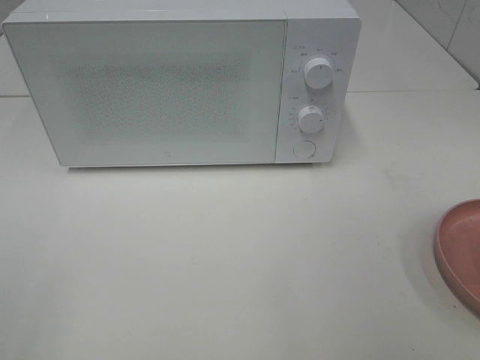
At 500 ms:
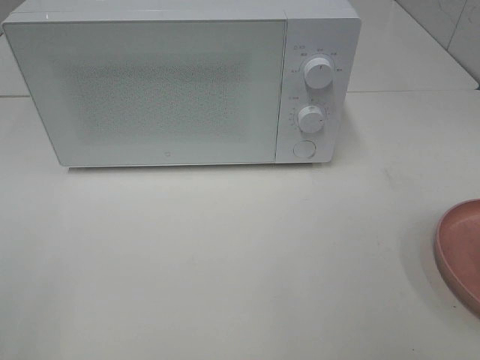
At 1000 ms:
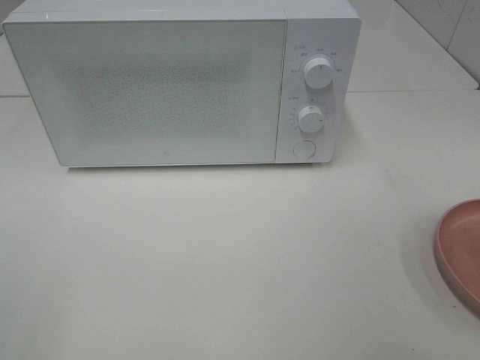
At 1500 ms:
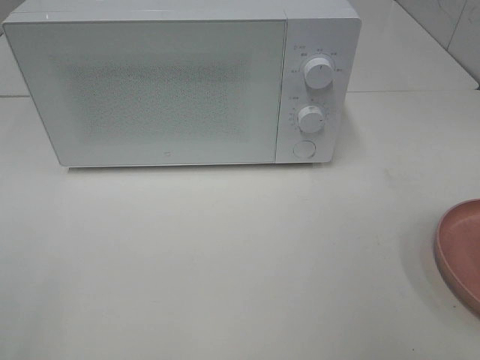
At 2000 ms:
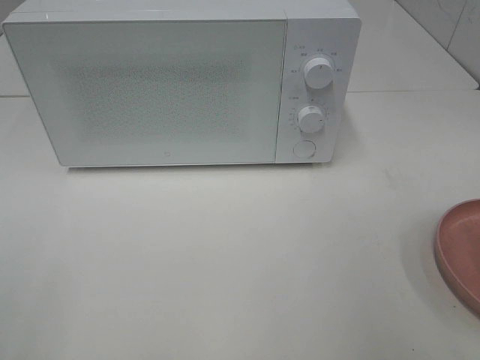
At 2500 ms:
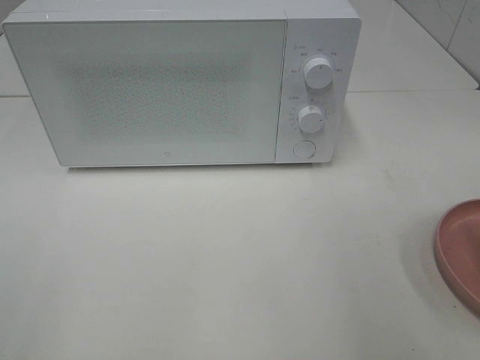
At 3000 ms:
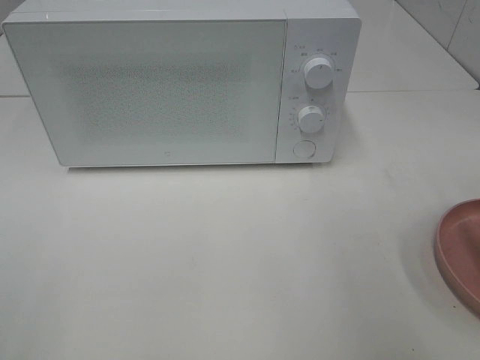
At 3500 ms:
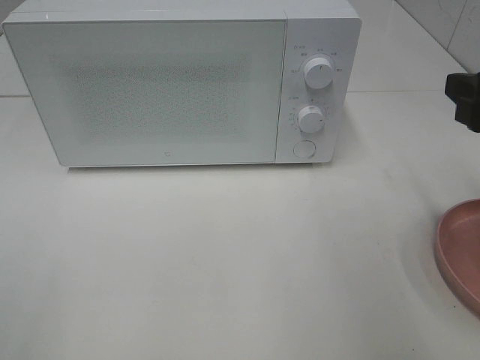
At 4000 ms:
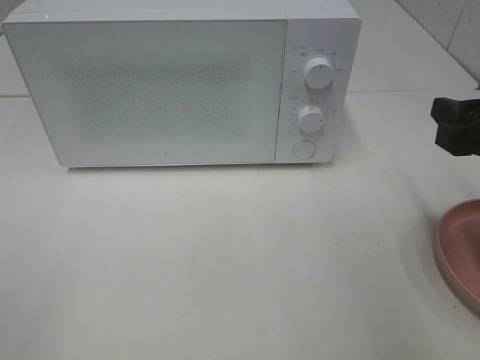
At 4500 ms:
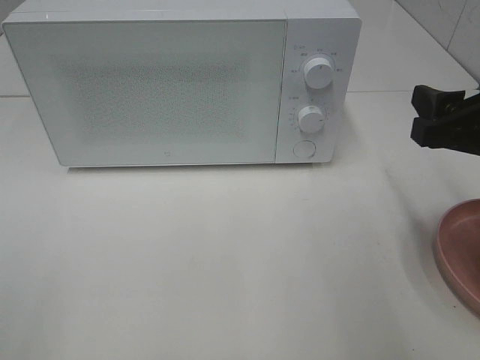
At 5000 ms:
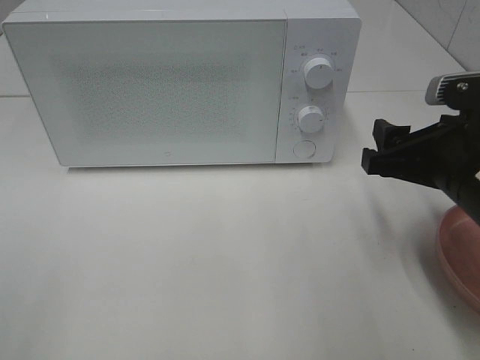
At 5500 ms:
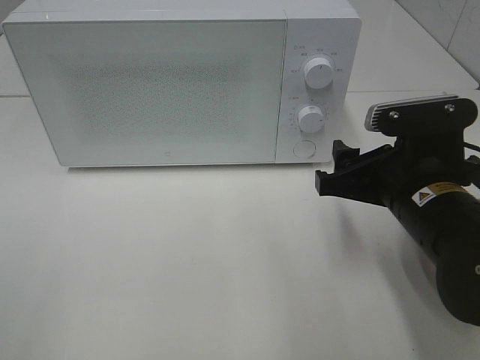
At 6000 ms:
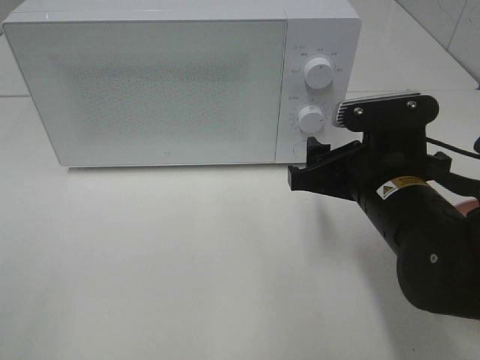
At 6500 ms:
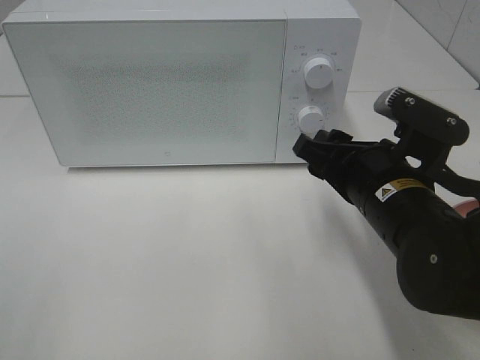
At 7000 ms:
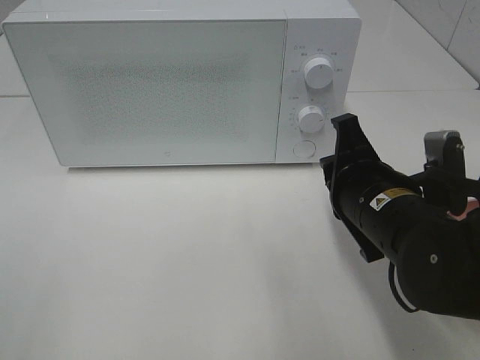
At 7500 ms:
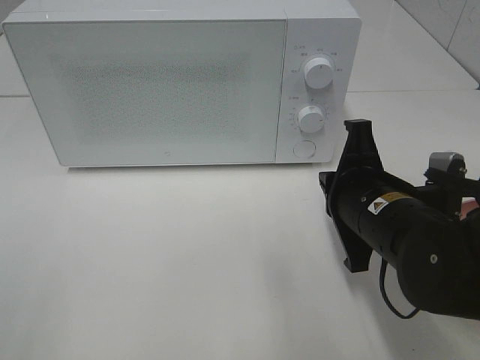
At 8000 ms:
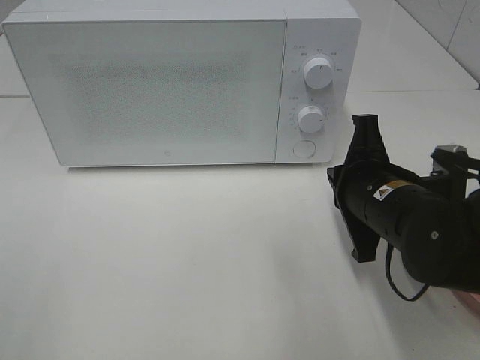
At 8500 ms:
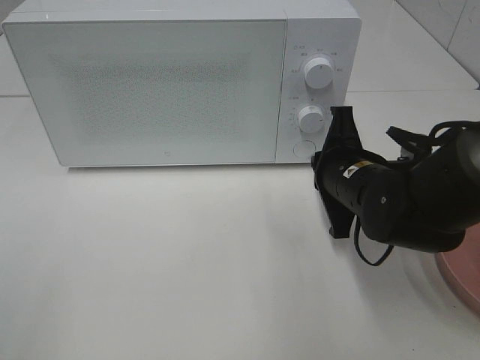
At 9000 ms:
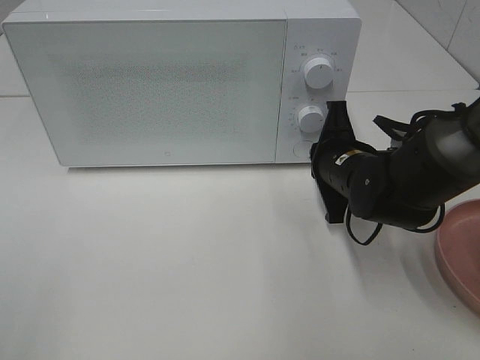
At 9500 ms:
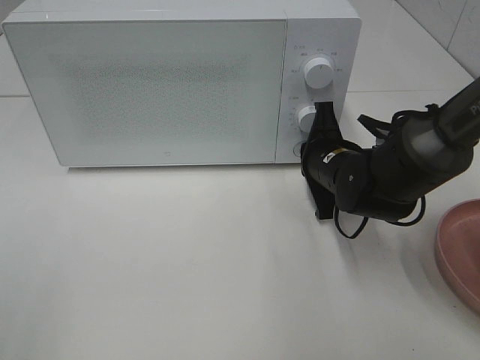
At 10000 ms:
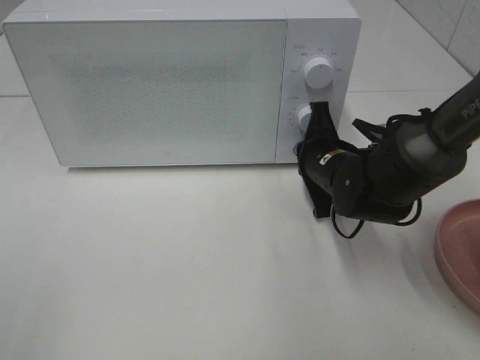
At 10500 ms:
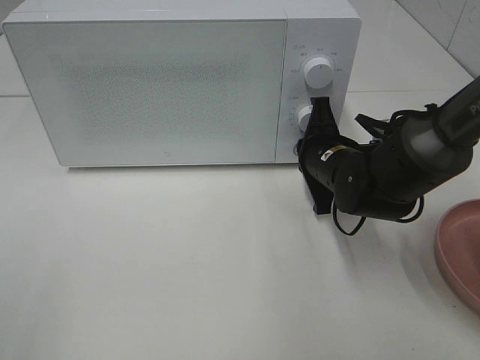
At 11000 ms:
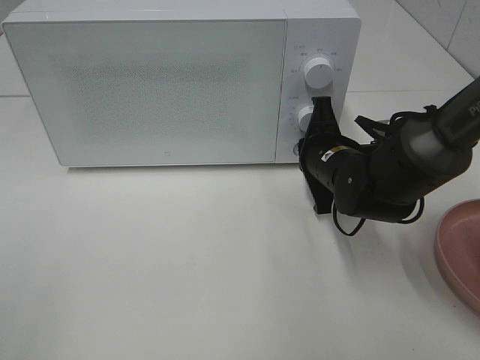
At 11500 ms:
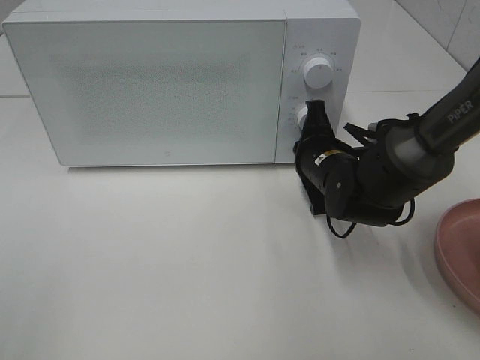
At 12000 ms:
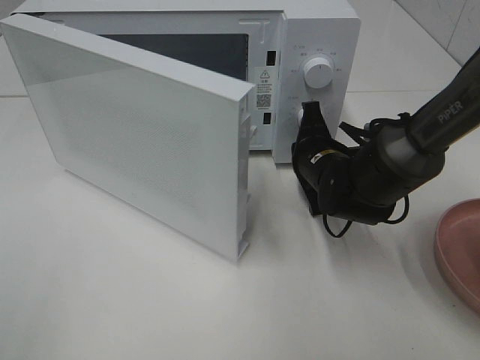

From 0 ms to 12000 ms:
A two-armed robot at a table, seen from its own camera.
Task of the whole recording: Heat the burger.
From 2000 ms to 4000 ms: The right gripper shifts roughly 15 cm forward and downward.
From 4000 ms to 6000 ms: The right gripper is displaced to the left and downward by about 15 cm.
From 6000 ms to 8000 ms: The right gripper closes up.
From 8000 ms to 10000 ms: The right gripper shifts about 10 cm forward.

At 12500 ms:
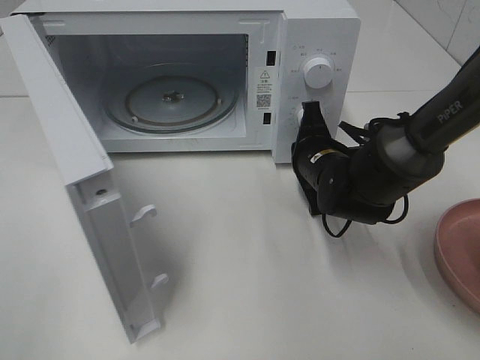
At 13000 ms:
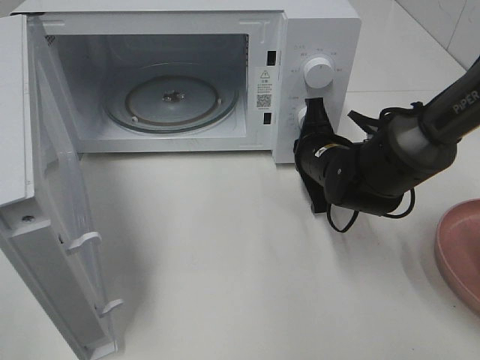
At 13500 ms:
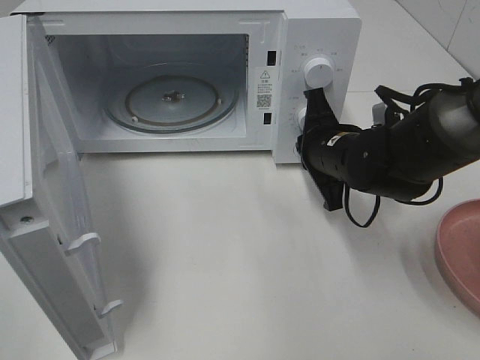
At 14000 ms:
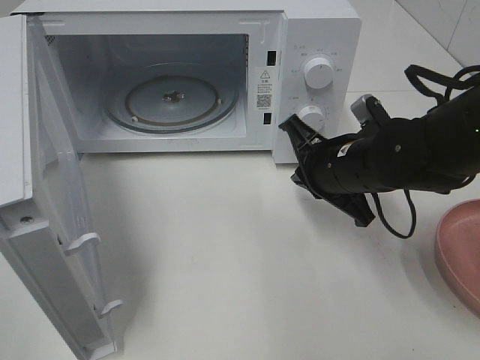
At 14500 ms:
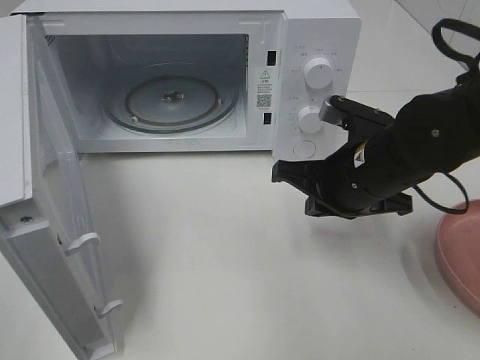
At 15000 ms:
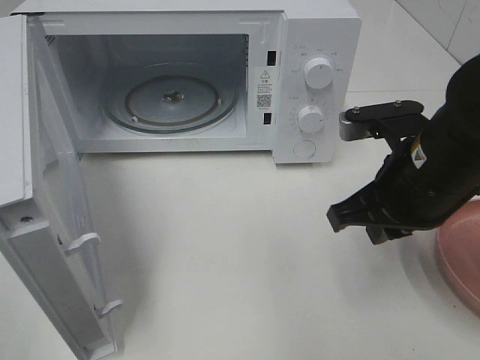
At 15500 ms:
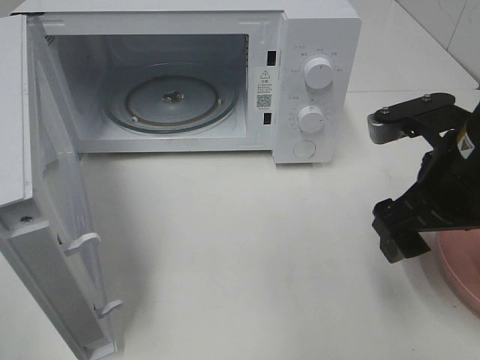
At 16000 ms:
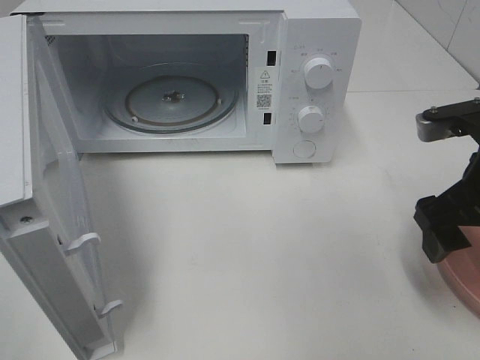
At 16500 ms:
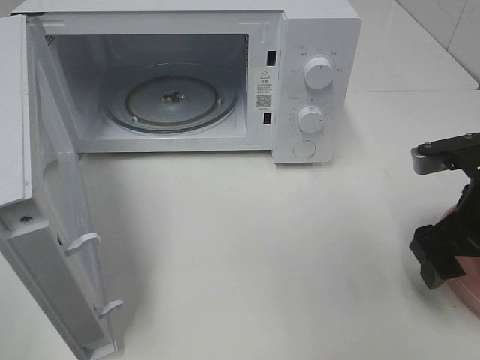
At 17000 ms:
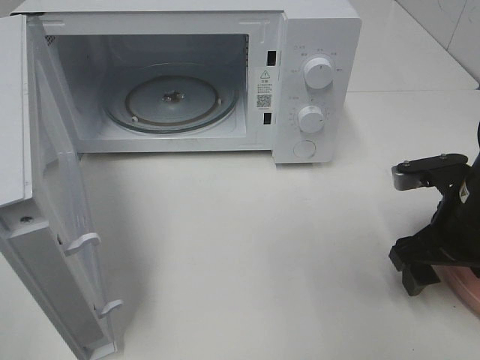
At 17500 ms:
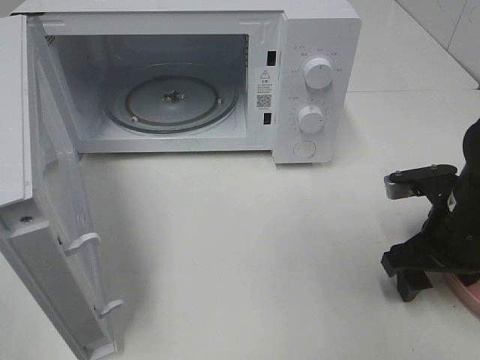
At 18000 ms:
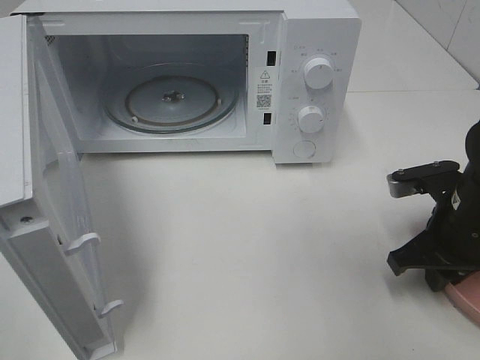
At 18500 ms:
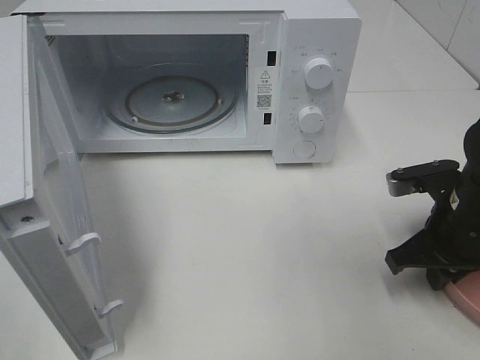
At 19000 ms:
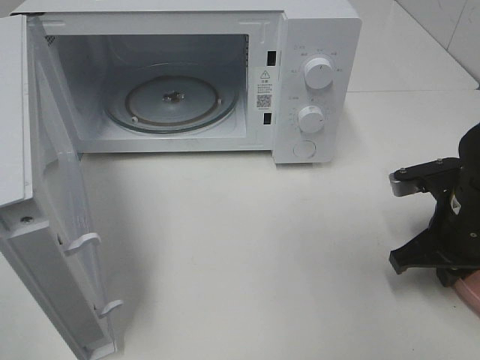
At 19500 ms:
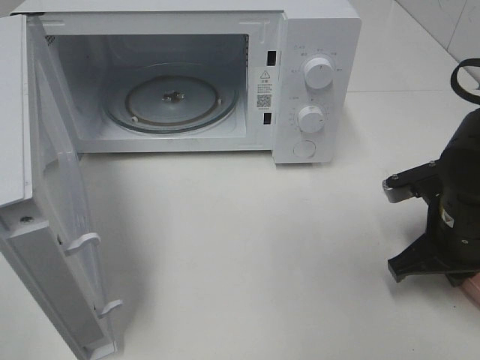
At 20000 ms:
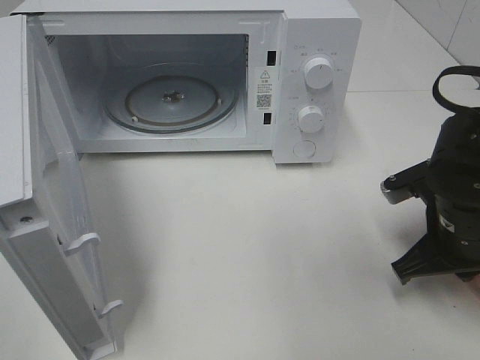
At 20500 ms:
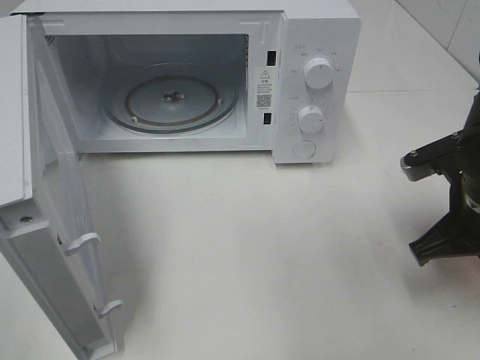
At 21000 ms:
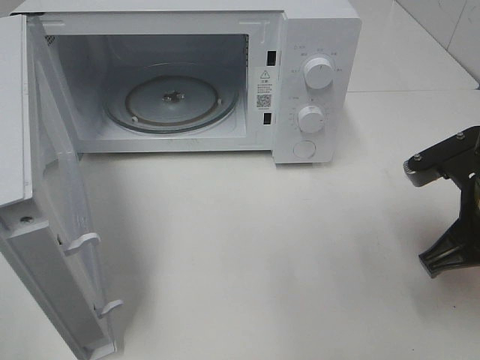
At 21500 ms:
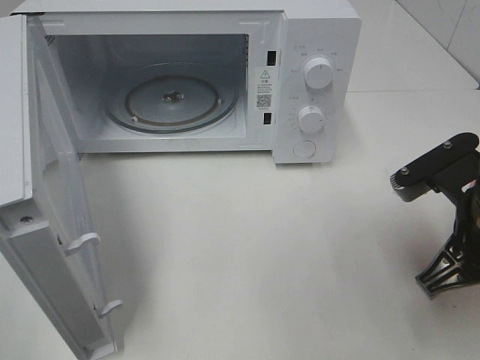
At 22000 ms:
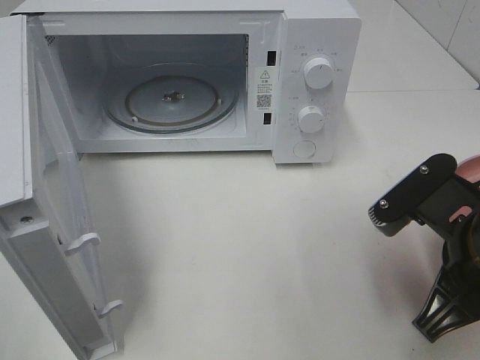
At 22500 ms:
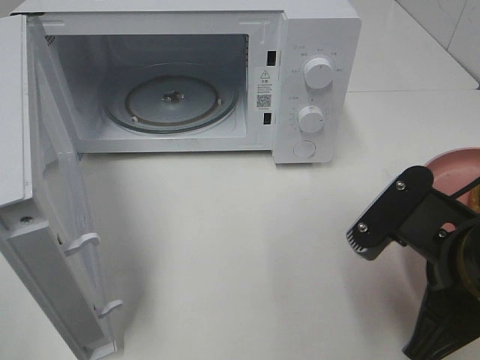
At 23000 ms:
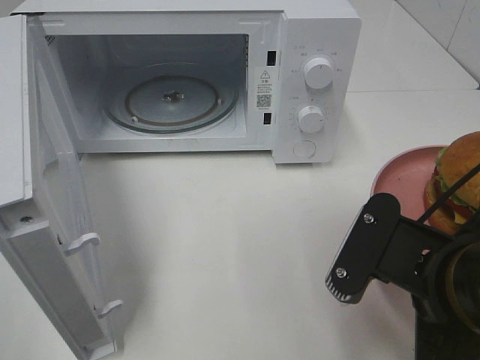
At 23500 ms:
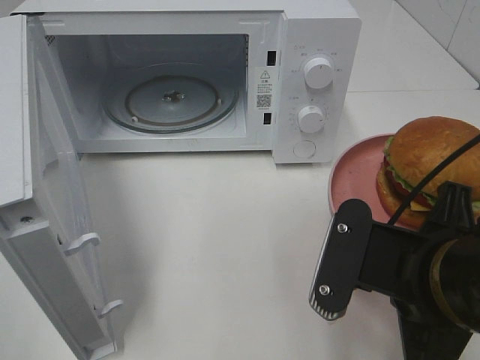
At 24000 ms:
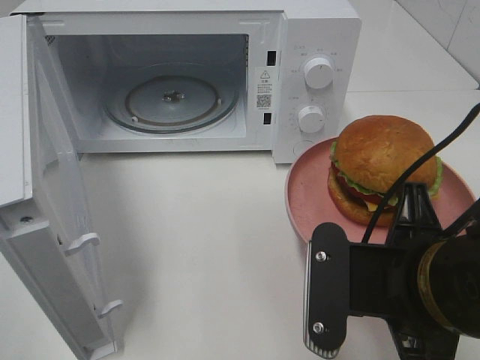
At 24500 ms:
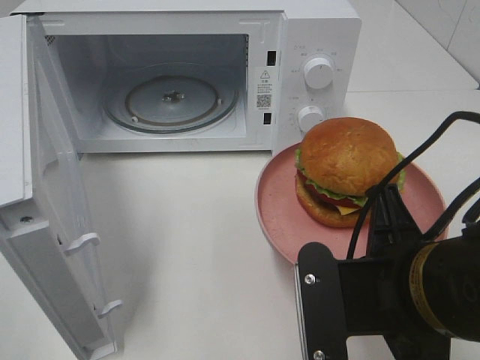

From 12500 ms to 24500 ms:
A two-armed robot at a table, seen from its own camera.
Task of the whole recording: Heat the burger.
Step, from 13500 ms to 19000 ms: Right hand: grab the plate with the hamburger.
From 12500 ms to 14500 ms: The right gripper heads backward and upward, covering roughly 10 cm.
From 14500 ms to 16500 ms: The right gripper is displaced to the right by some 10 cm, and opens up.
From 16500 ms to 18500 ms: The right gripper shifts about 5 cm downward, and closes its fingers.
From 18500 ms to 20500 ms: There are only small adjustments of the grippers.
From 20500 ms to 22500 ms: The right gripper is displaced backward and to the left by approximately 10 cm.

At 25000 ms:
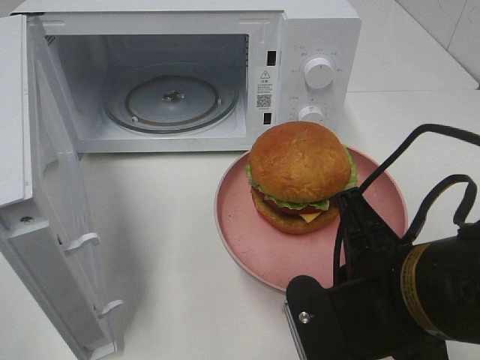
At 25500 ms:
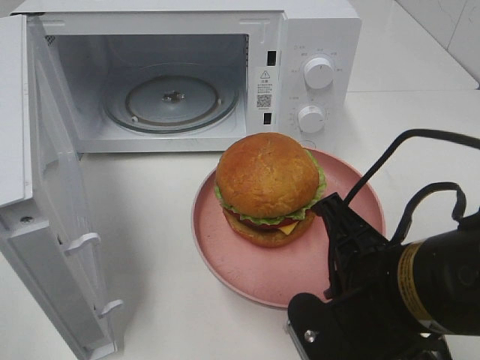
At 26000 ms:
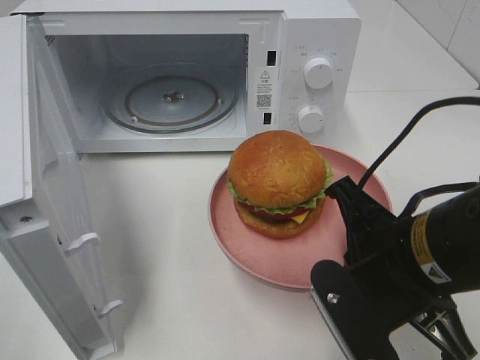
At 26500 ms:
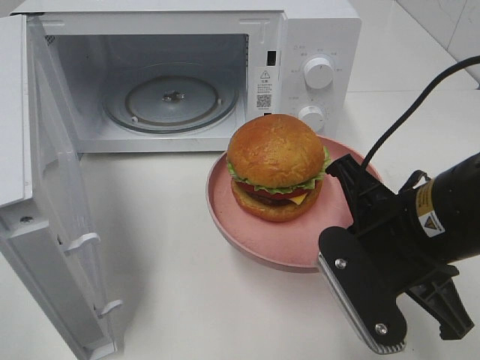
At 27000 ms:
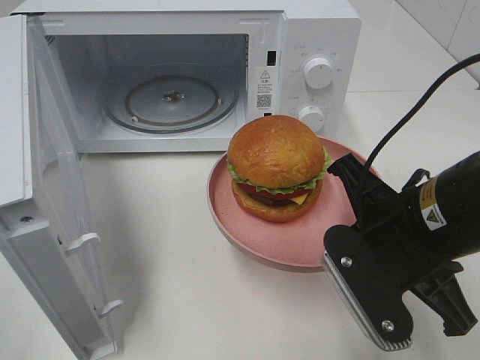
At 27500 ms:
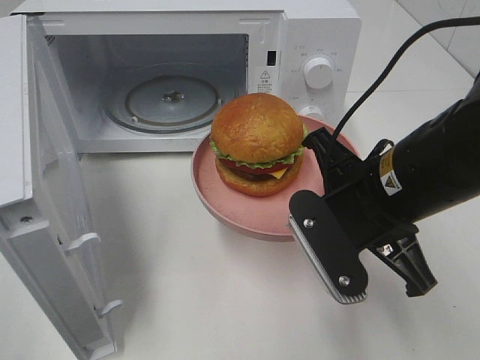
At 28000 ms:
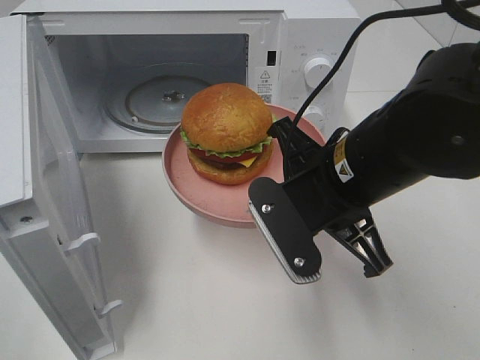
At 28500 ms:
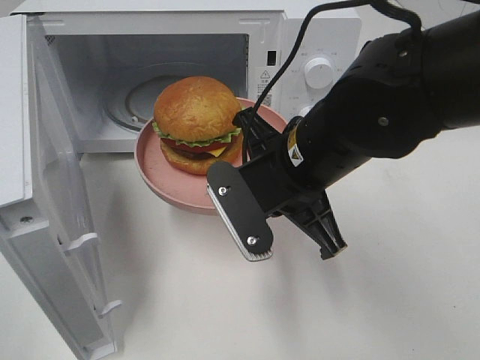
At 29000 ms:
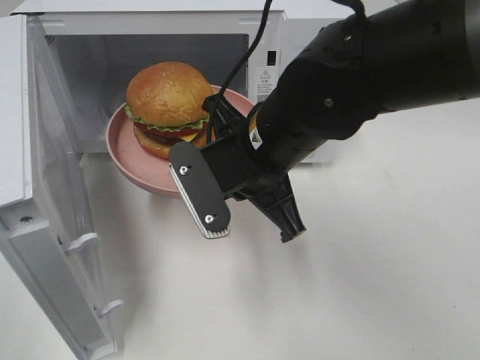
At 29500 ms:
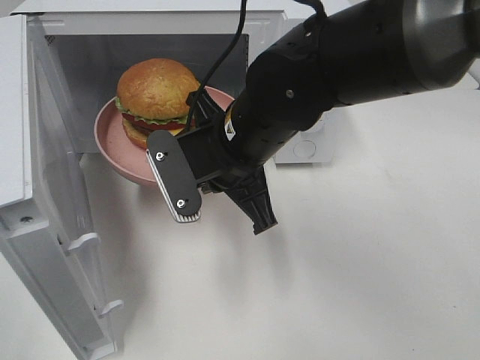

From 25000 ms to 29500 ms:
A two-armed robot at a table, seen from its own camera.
Task of the whole recording: Heat the burger.
From 25000 ms to 27000 ms: The right gripper travels forward by roughly 5 cm.
From 27000 ms to 29500 ms: The right gripper is displaced to the left and forward by some 15 cm.
